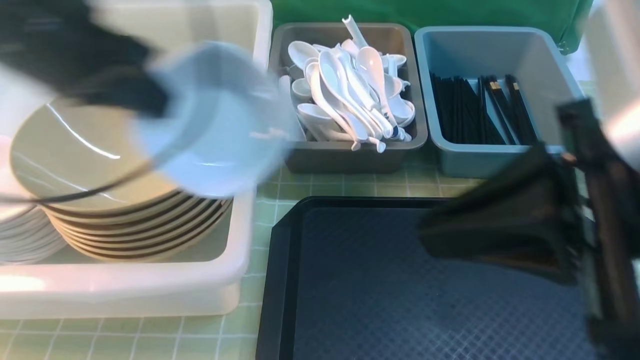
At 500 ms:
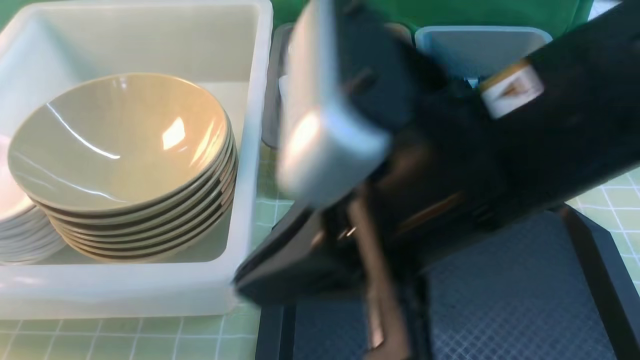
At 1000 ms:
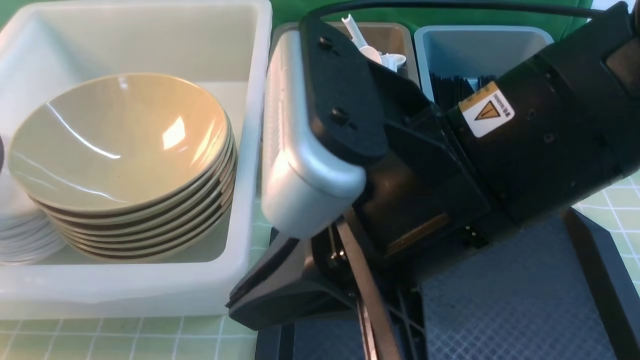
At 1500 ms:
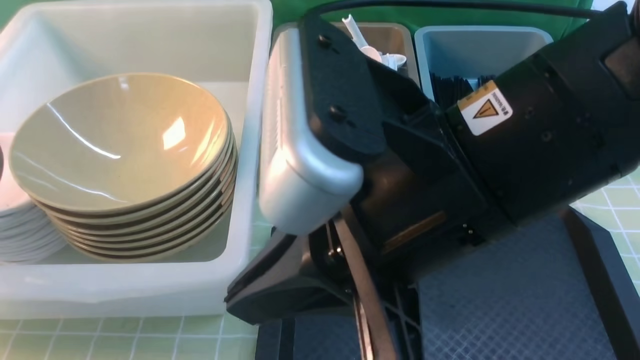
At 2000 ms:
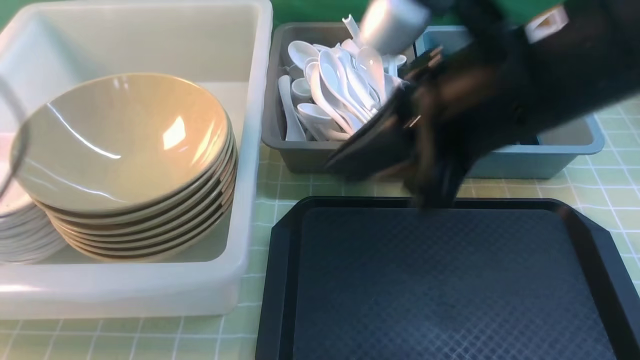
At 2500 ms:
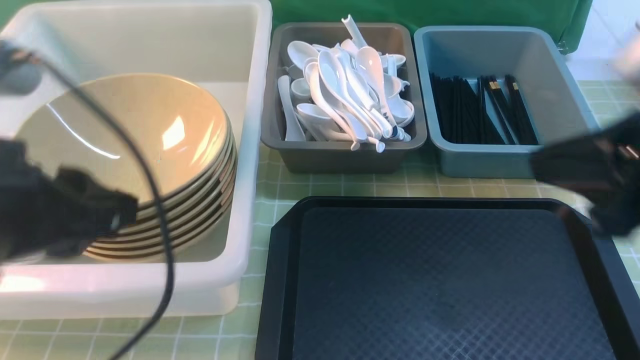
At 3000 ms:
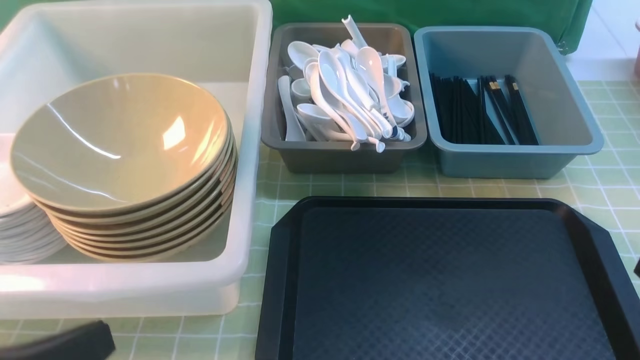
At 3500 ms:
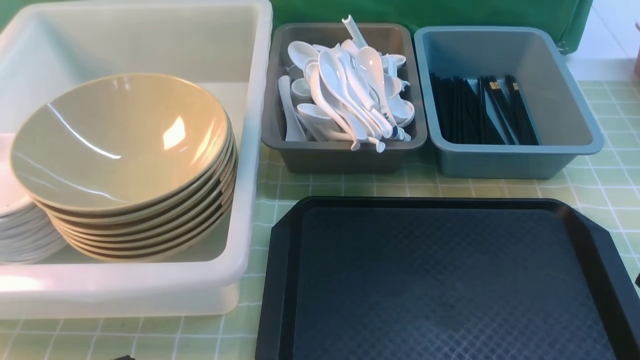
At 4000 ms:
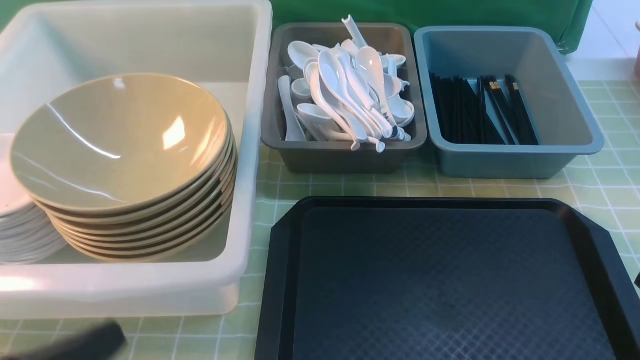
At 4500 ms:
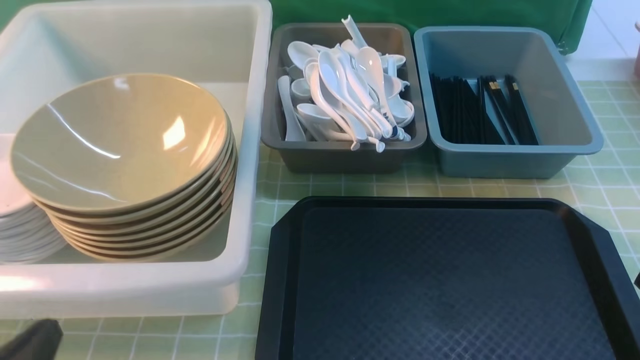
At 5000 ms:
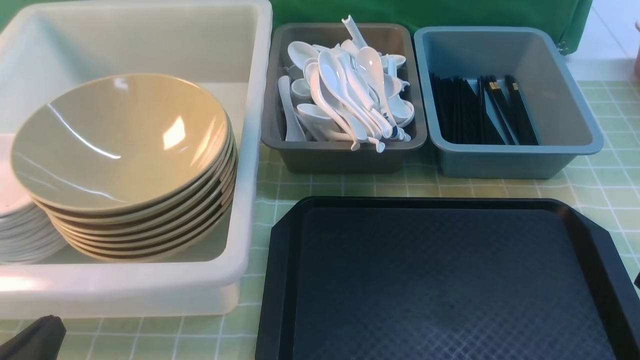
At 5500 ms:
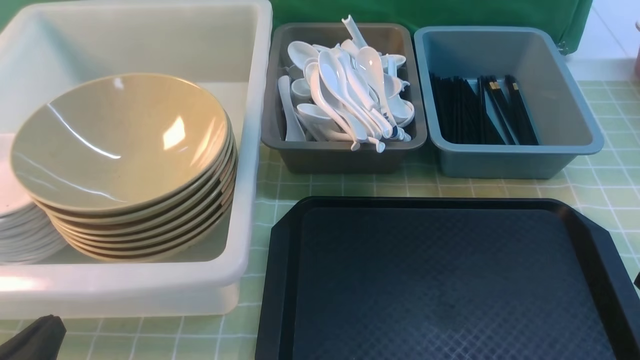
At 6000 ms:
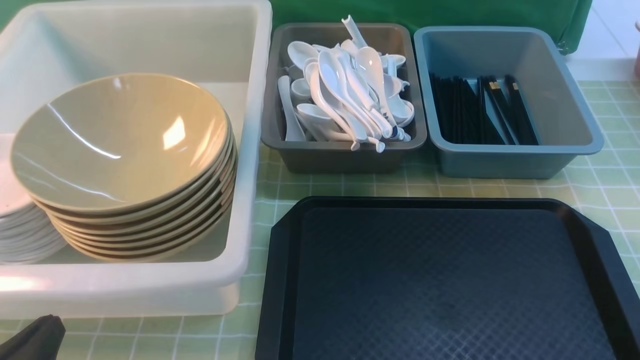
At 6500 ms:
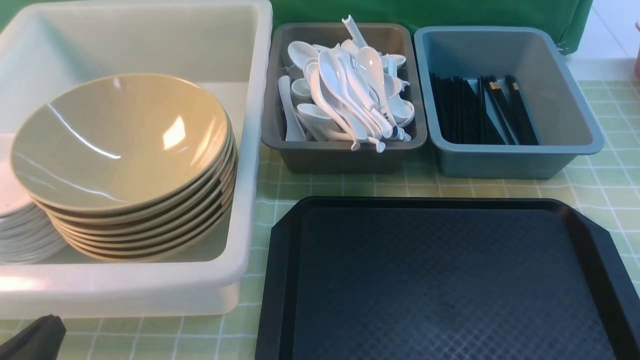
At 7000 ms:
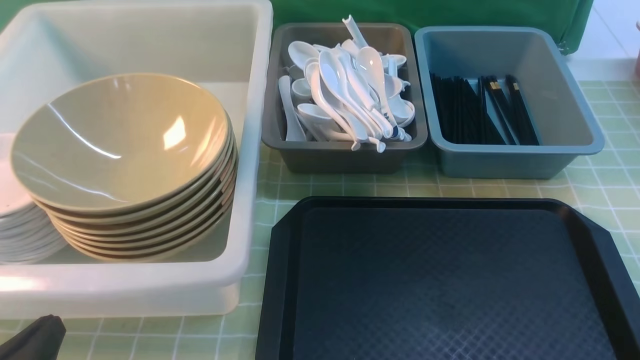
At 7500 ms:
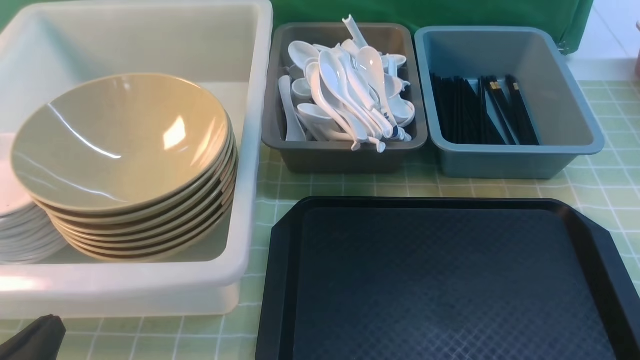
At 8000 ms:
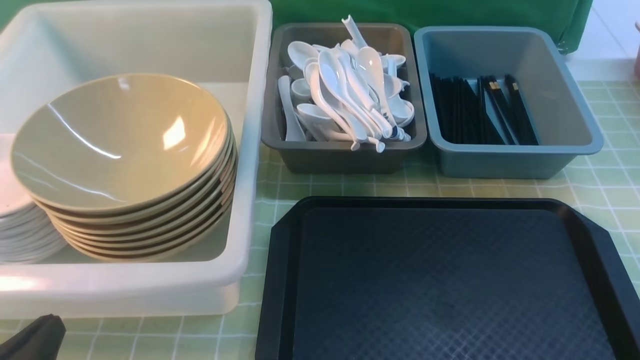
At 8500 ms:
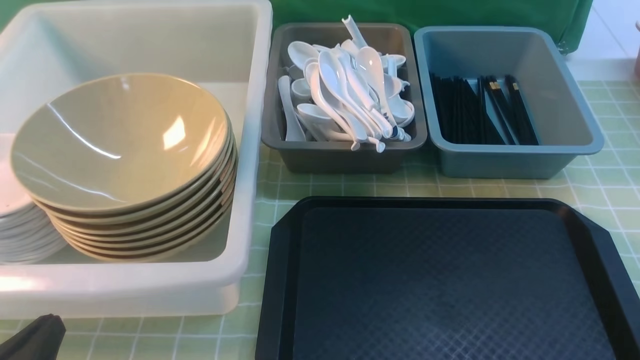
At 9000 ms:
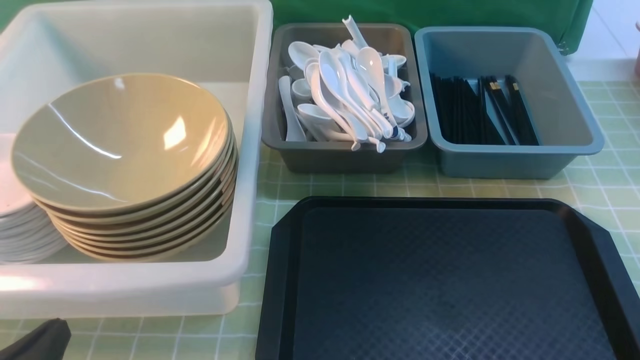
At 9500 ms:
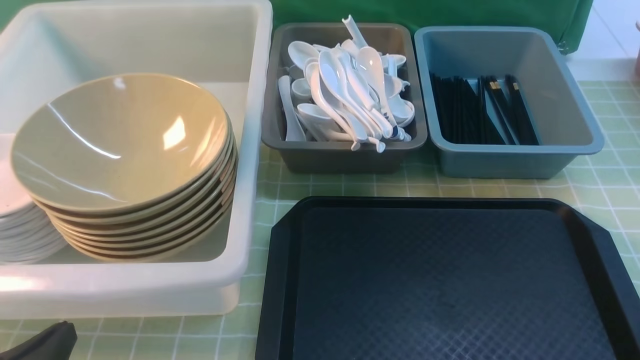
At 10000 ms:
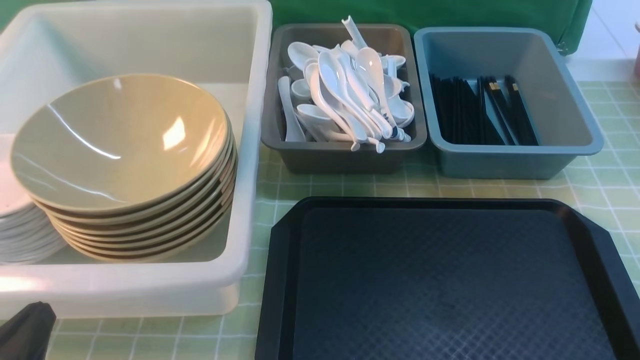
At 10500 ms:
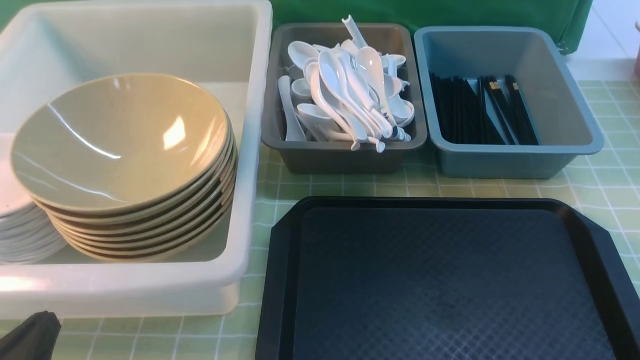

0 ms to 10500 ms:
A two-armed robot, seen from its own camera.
Task of the whole recording: on green table put chopsticks spoon bowls plates into blue grey white boxes.
Step, 0 ms to 1500 ms: use the left arm to put the plate into the large storage box on the left.
0 ms to 2000 ms: The right gripper is displaced forward by roughly 10 cm, and moves roughly 10 cm to the left and comes back. Meanwhile the left gripper travels to the left by some 10 cm, and opens.
2000 ms to 4000 ms: The left gripper shifts about 25 cm backward, downward and to the right, and closes up. Meanwhile the right gripper moves backward, to the right and downward, approximately 25 cm.
4000 ms to 6500 ms: The left gripper is displaced downward by some 5 cm.
